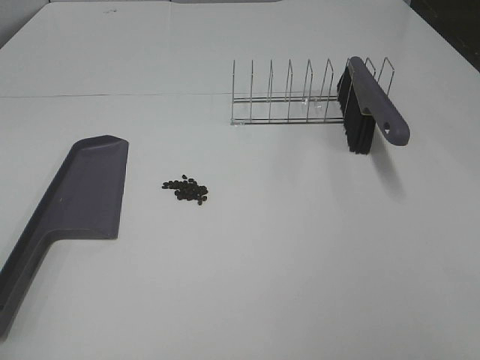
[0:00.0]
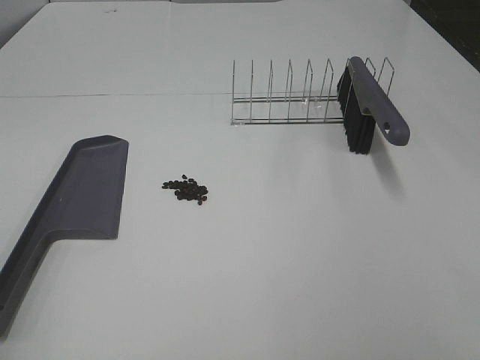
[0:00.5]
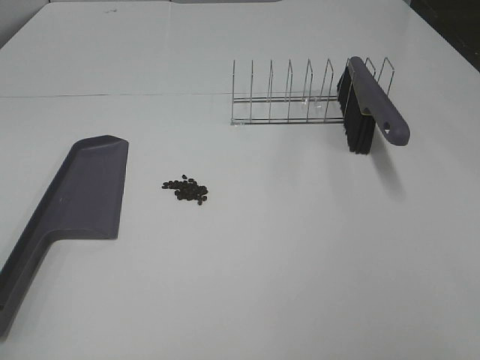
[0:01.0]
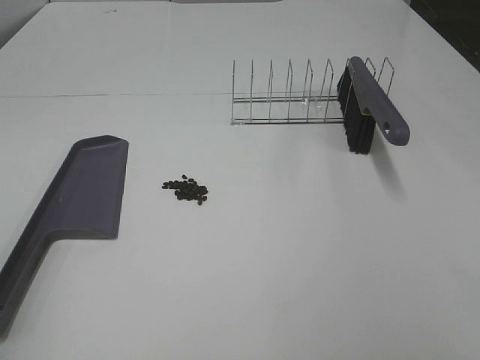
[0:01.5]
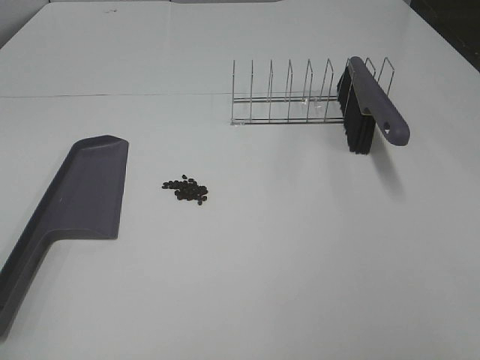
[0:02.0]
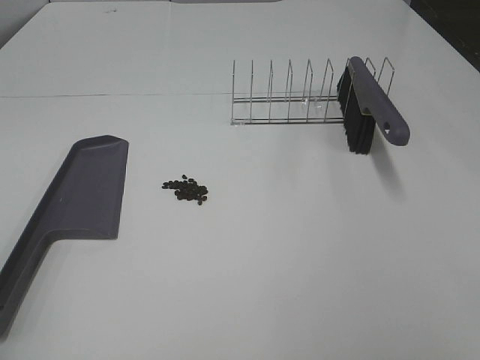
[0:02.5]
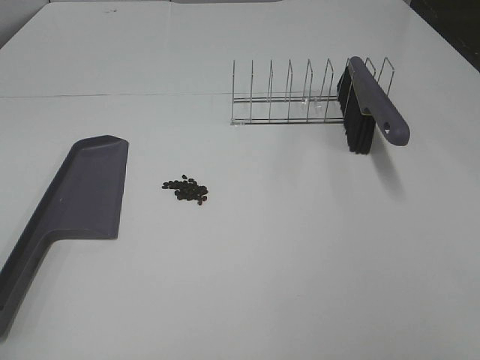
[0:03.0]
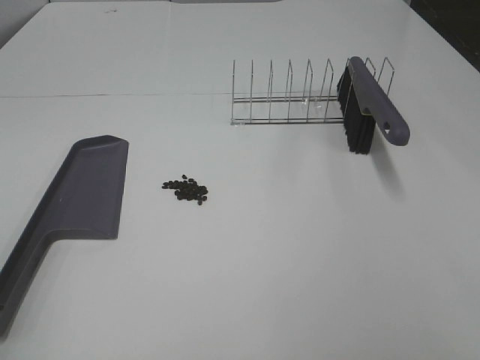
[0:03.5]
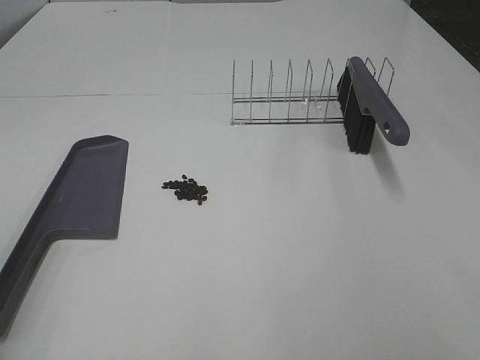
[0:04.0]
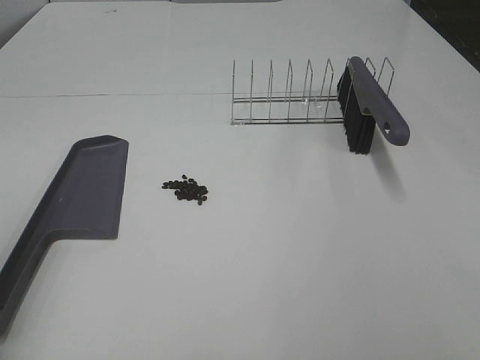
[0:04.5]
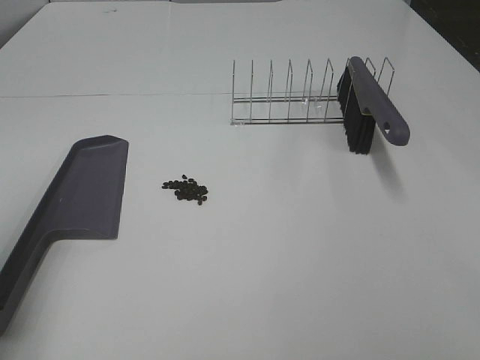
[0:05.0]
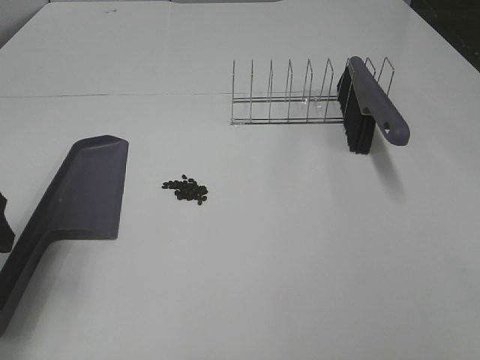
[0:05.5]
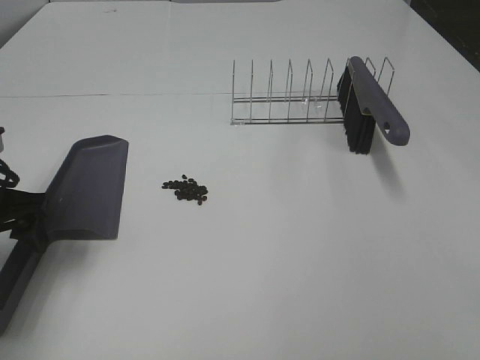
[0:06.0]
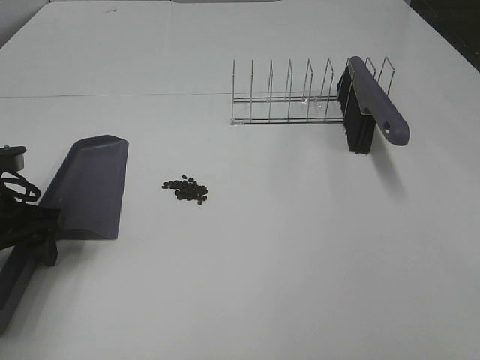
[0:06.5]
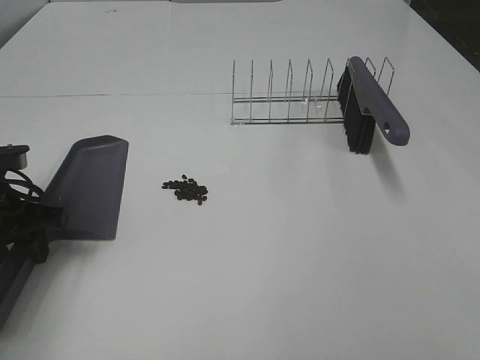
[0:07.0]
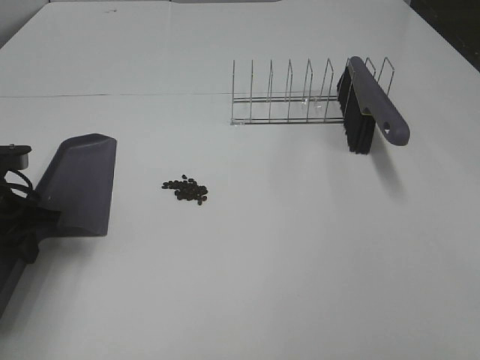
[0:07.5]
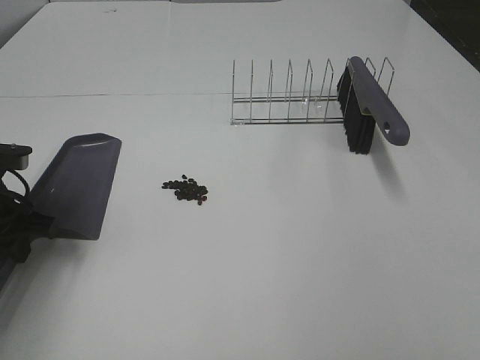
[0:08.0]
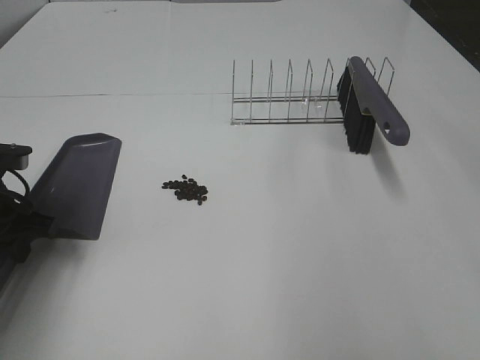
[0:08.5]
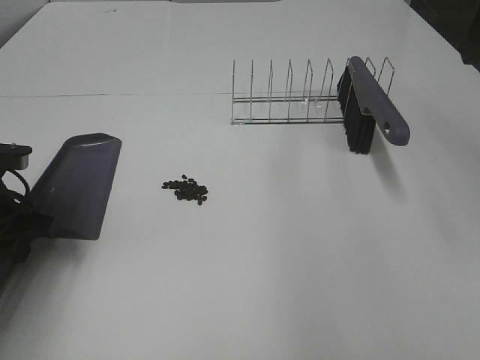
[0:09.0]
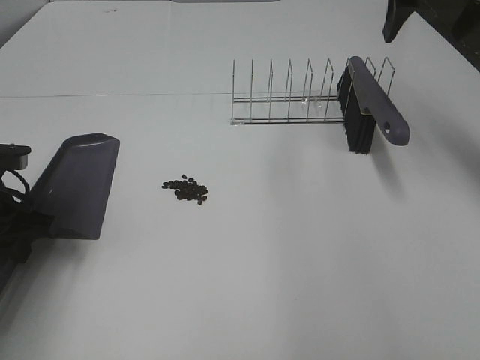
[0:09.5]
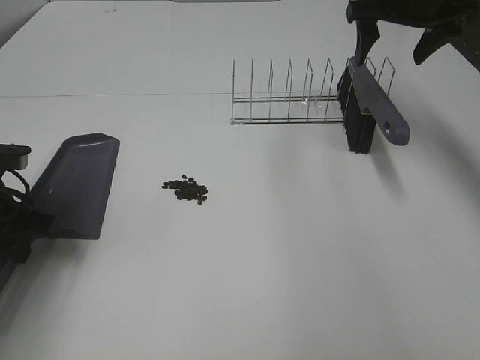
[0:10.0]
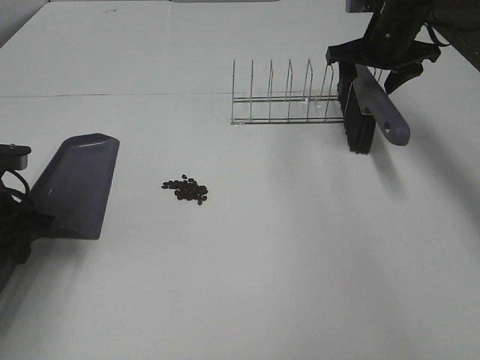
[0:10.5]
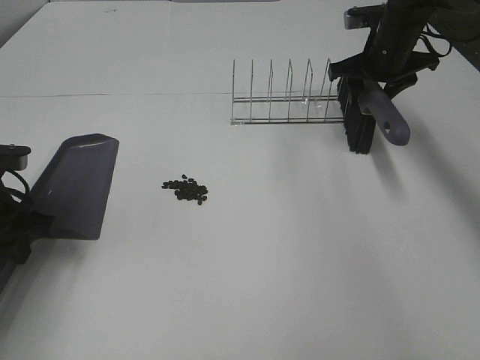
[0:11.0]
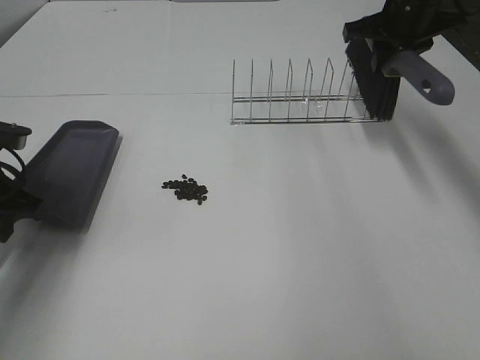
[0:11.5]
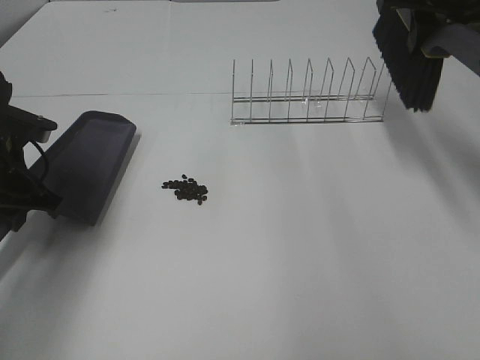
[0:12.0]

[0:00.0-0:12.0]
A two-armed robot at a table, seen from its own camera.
Task of the whole recording: Sweep Coffee Bean.
Step, 0:00.0 to 0:07.0: Left hand: grab the dustpan.
Step, 0:07.5 to 0:11.0: Right hand:grab the broom.
0:00.0 to 0:02.0: Both grippers stay put.
0:04.0 to 0:06.0: The left gripper goes roughly 30 cm forward and downward.
0:06.0 to 0:08.0: The left gripper closes.
0:08.0 to 0:10.0: The right gripper moves forward, roughly 40 cm.
0:10.0 to 0:12.0: The right gripper is displaced backward by approximately 5 cm, goes downward and returns, about 10 cm each way, and closes its fingers.

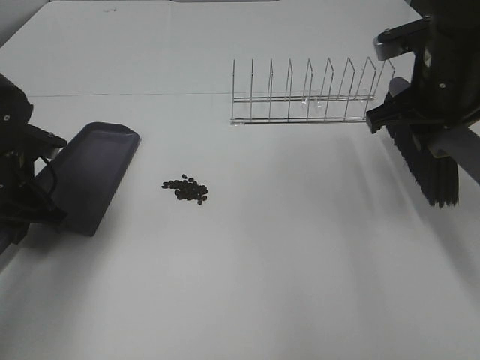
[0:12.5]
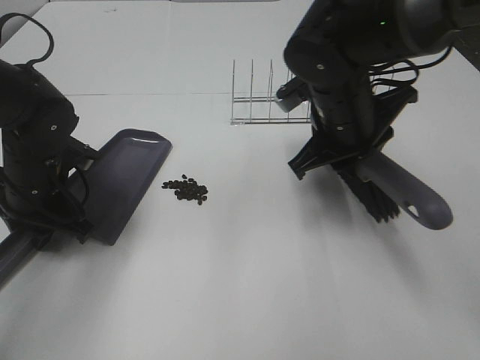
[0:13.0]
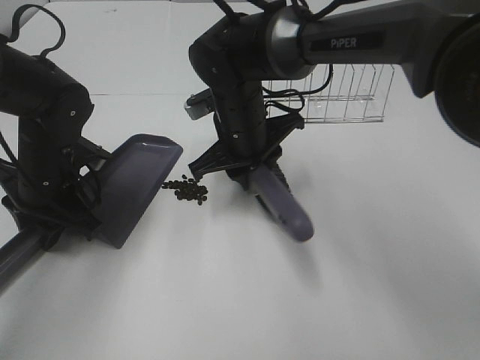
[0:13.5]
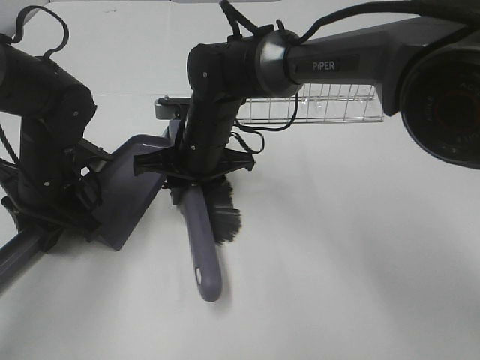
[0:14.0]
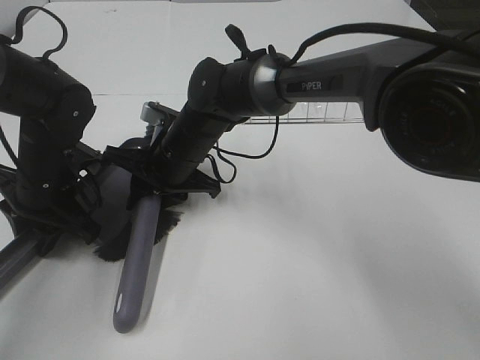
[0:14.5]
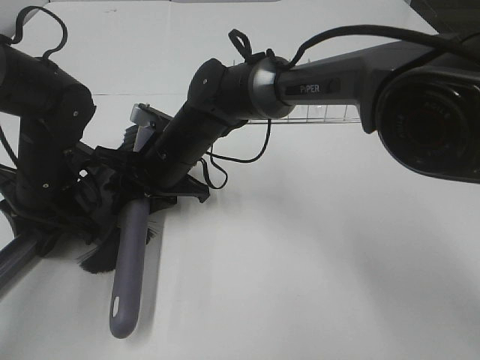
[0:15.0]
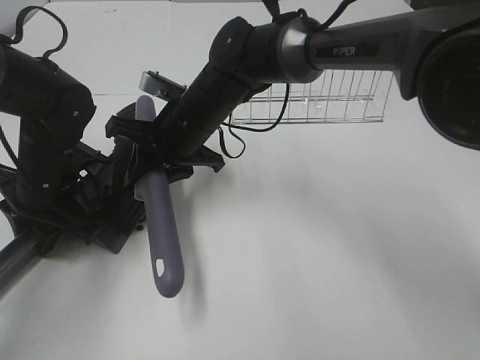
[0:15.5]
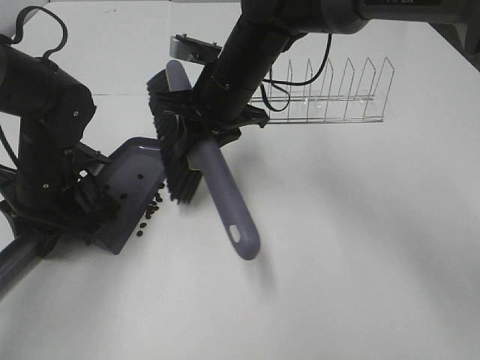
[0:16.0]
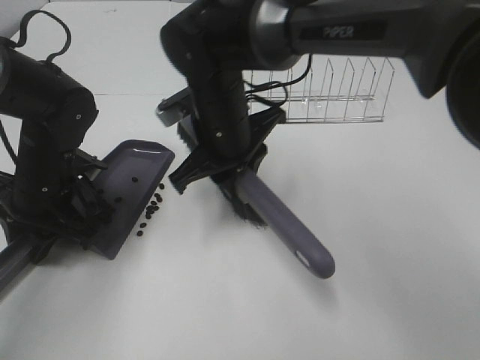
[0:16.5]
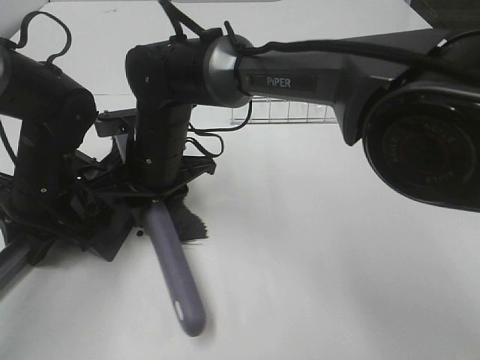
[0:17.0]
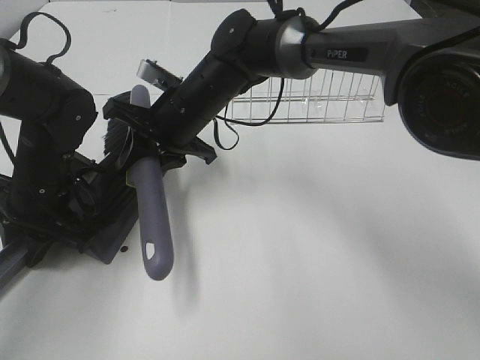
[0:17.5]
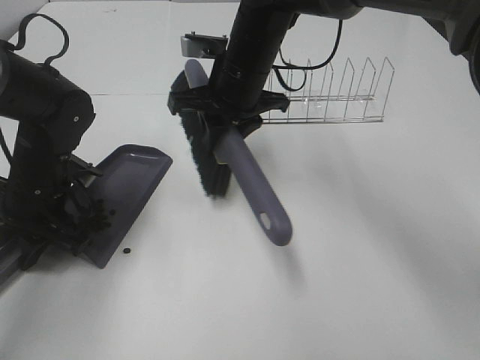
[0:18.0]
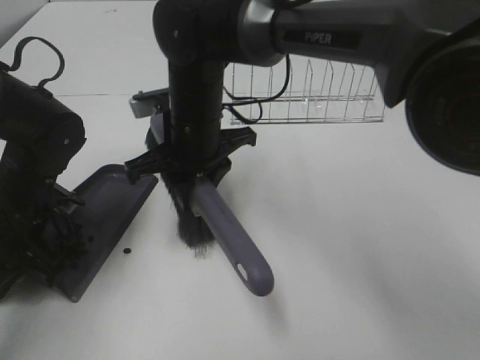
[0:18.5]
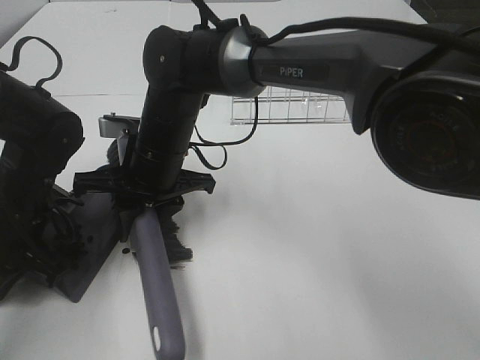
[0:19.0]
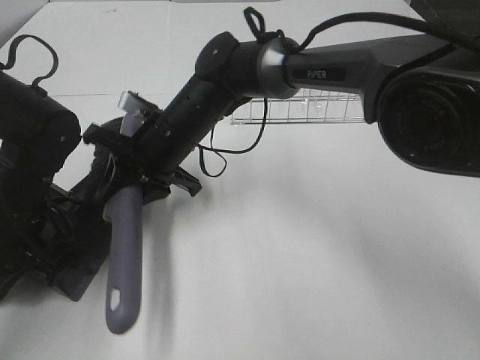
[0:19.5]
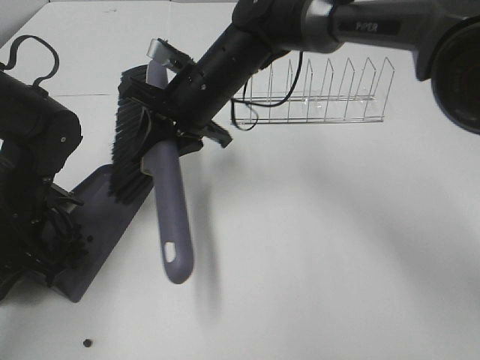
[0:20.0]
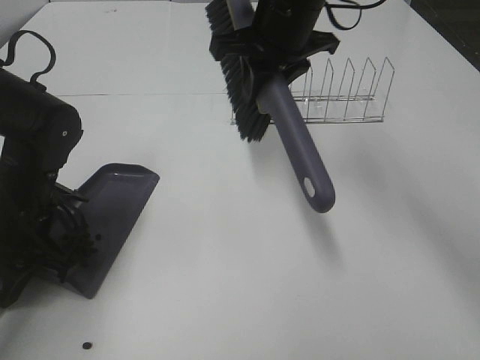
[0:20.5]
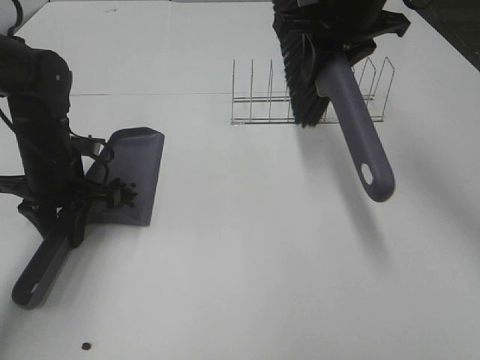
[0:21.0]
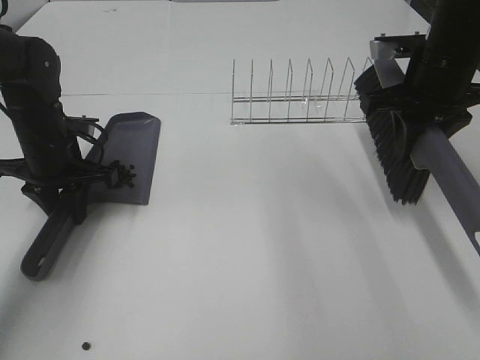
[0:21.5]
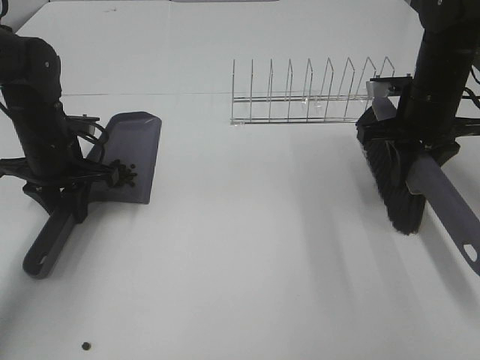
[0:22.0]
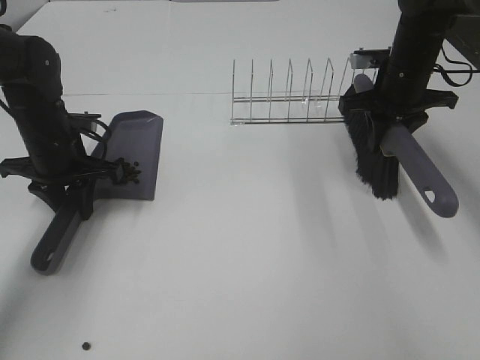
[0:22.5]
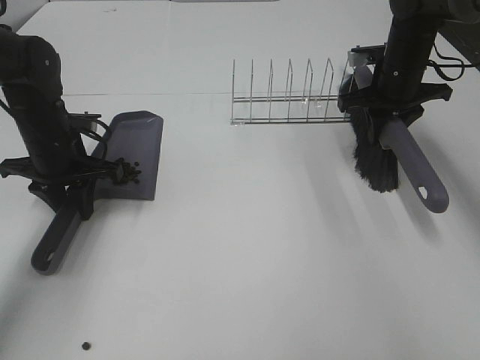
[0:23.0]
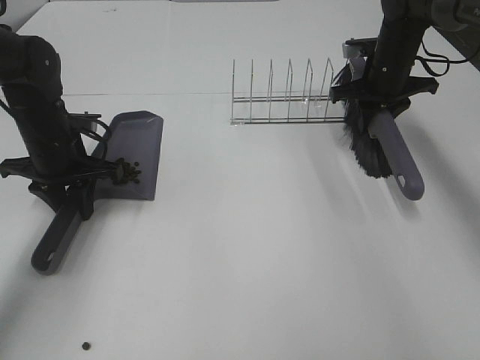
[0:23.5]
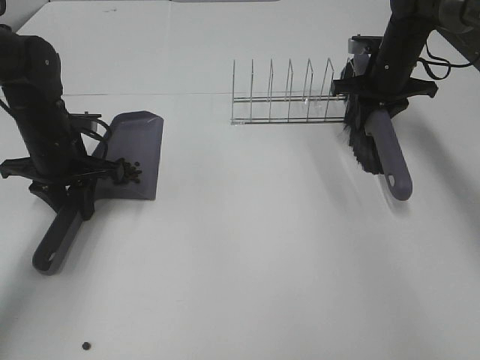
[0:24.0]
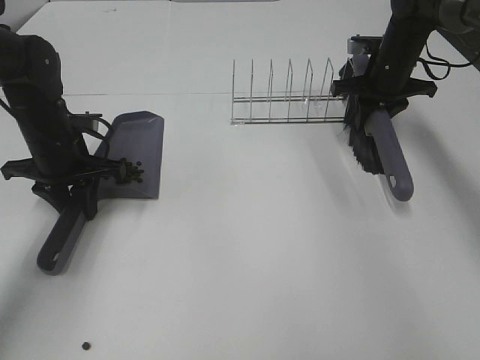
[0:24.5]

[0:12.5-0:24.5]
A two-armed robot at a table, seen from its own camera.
Task of the whole recording: Sweep Coffee Bean.
Step, 0:12.5 to 0:19.5: Right hand:sweep the coffee beans into the dustpan.
0:12.5 to 0:14.5: The left gripper ends up approximately 5 cm from where it was. The right gripper travels to the left and downward by about 30 cm.
0:14.5 to 0:16.5: The right gripper heads upward, covering approximately 5 cm.
0:16.5 to 0:18.5: The right gripper swings left and right, approximately 10 cm each way, with 2 reversals.
0:18.5 to 0:20.5: The right gripper goes about 15 cm to the right, upward and forward.
0:20.5 to 0:22.5: The left gripper goes about 10 cm forward. The right gripper shifts about 20 cm to the right and downward.
0:22.5 to 0:24.5: The right gripper travels forward by about 5 cm.

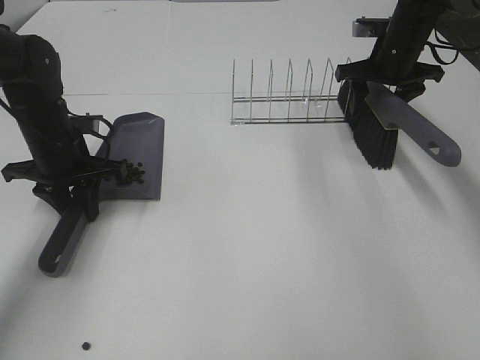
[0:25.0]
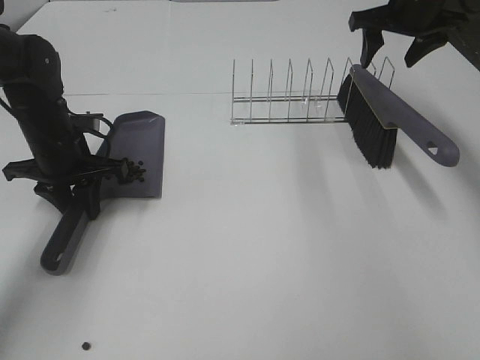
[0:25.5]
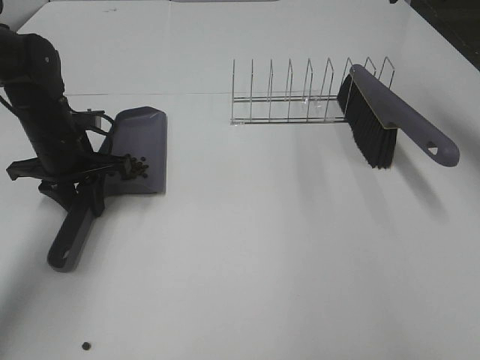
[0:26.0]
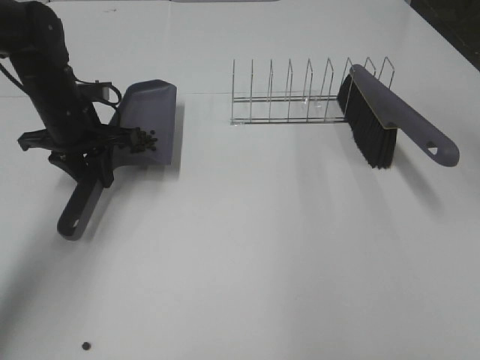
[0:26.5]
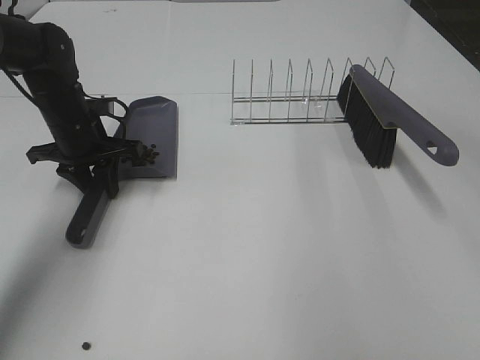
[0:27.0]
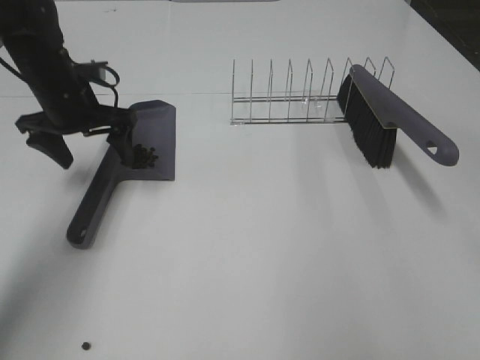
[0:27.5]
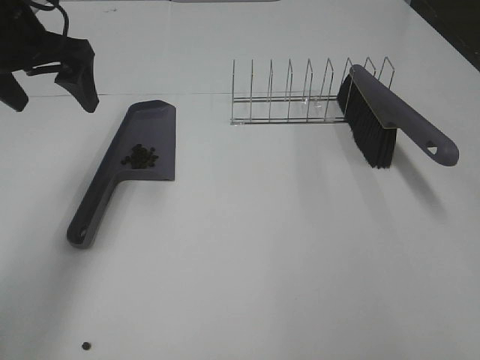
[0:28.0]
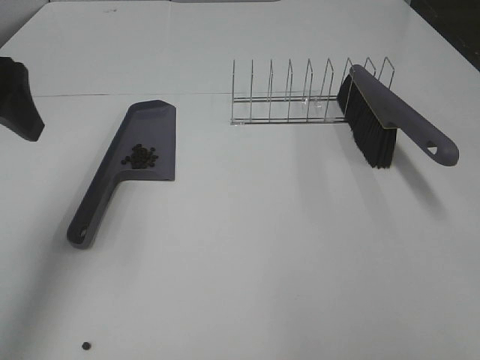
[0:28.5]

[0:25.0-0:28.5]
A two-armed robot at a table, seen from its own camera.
Task of the whole recording: Sweep Coffee Bean.
Step, 0:25.0 to 0:27.0: Left hand:place the dustpan on the table.
0:25.0 to 0:27.0: The right gripper is displaced backward and upward by approximately 35 cm.
0:27.0 to 0:28.5: The left gripper goes some 25 cm upward and backward, and opens up.
